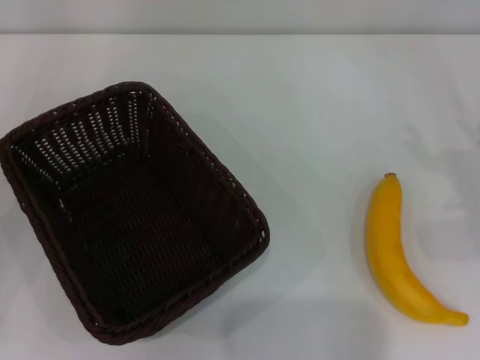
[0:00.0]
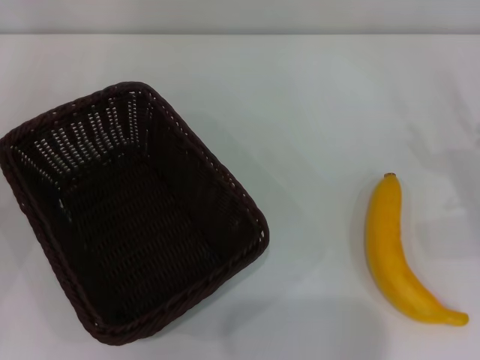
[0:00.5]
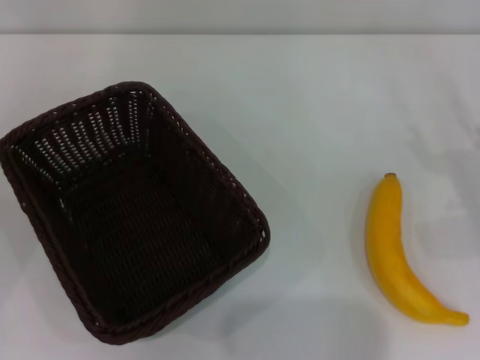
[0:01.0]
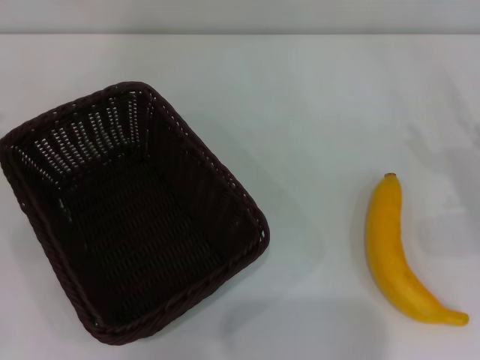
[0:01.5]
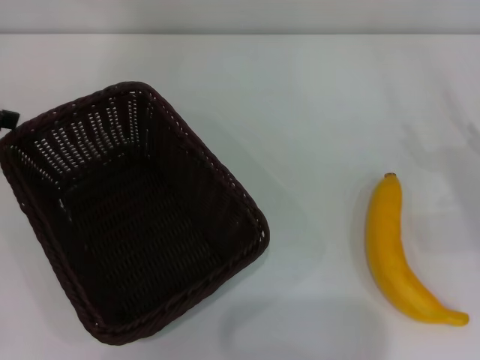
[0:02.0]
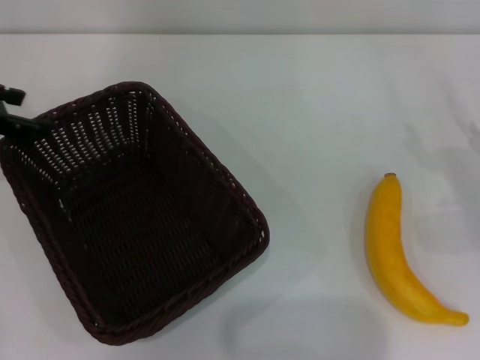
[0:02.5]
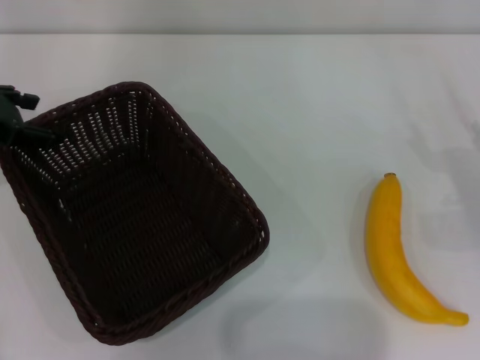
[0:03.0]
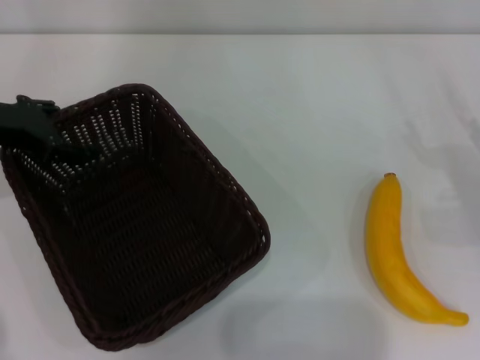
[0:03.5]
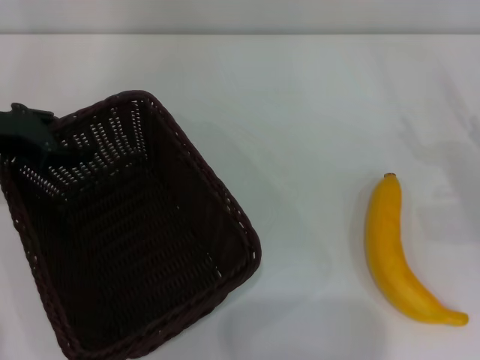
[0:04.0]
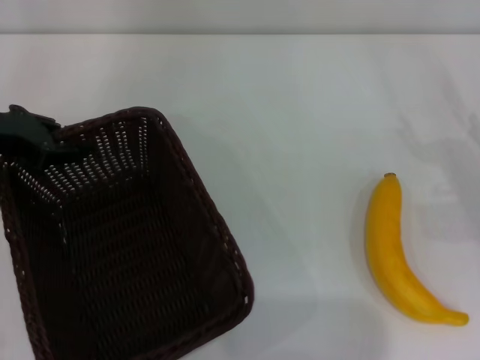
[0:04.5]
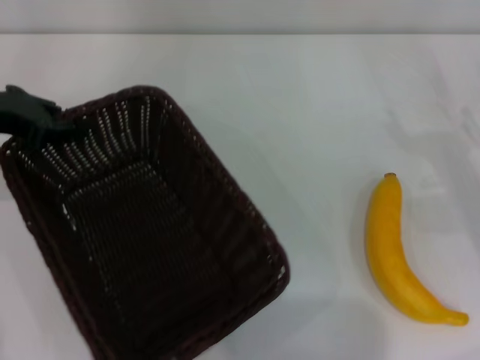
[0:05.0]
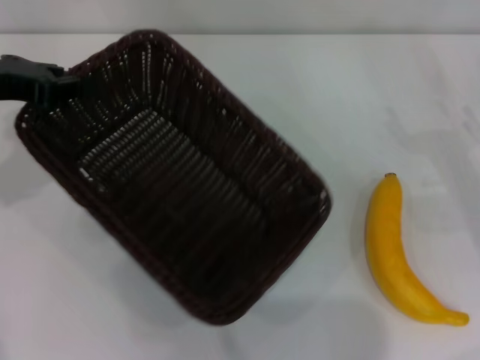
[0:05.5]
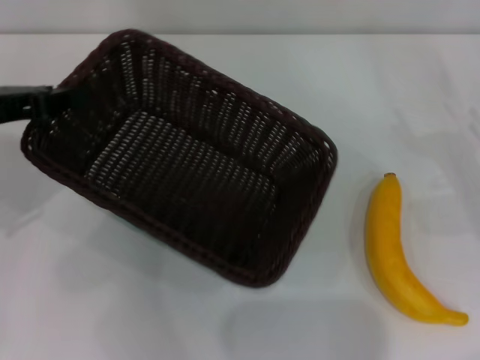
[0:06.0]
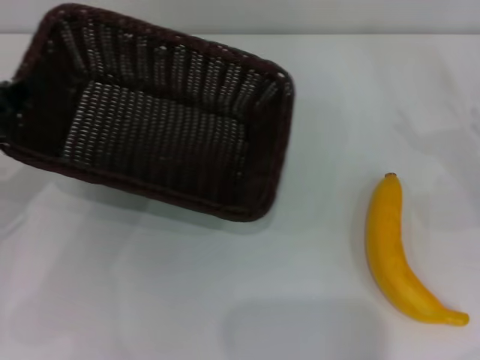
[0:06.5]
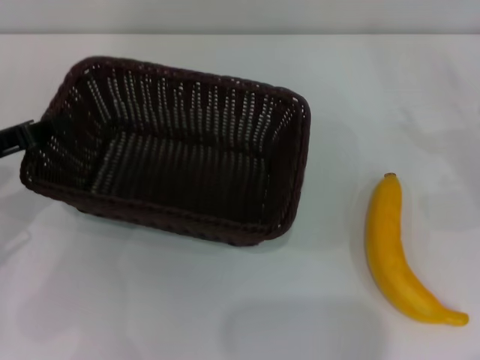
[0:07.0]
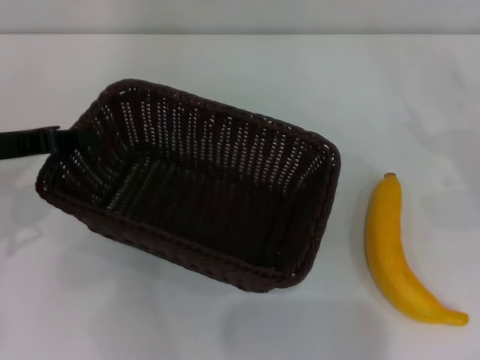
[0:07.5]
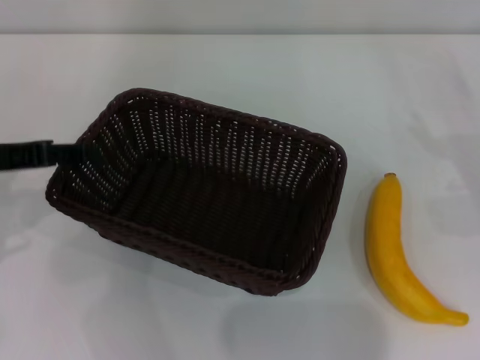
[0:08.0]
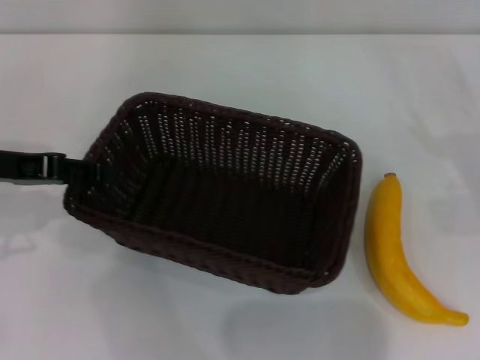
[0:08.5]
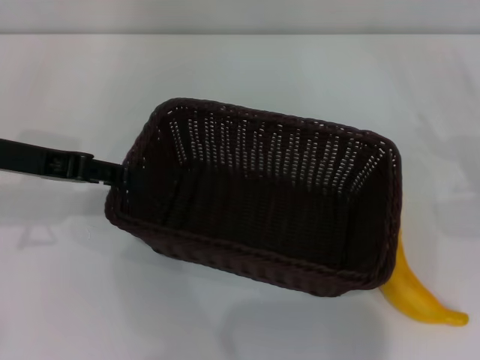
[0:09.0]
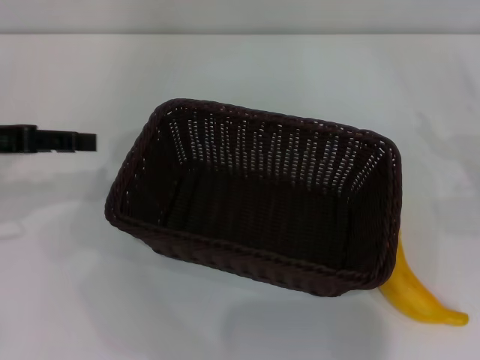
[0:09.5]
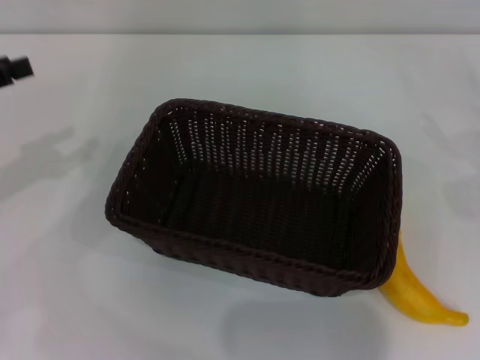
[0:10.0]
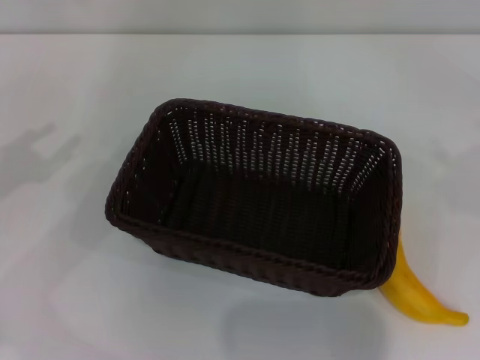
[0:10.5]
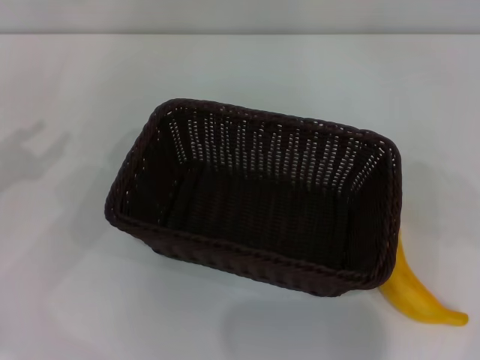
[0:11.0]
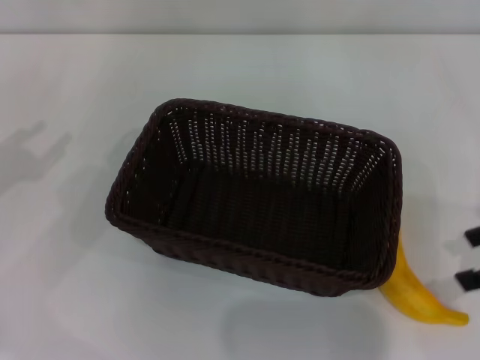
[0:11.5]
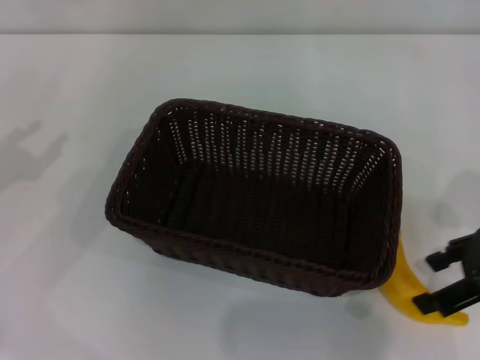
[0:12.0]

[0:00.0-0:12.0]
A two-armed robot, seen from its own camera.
Step, 0:00.0 to 0:05.0: Pick up the dark basket with the left gripper.
Step, 0:05.5 to 0:09.0: Place the dark basket in the center of view with the left gripper.
0:02.0 to 0:04.0: The left gripper moves downward and to the right, about 10 cm.
0:04.0 to 0:06.0: The left gripper changes place by roughly 5 cm, and closes.
0:06.0 to 0:08.0: The grippers make only small movements.
0:08.0 to 0:10.0: The left gripper travels to the left by some 5 cm, while the right gripper changes place by approximately 5 cm.
0:10.0 to 0:12.0: The right gripper moves to the left, approximately 15 cm.

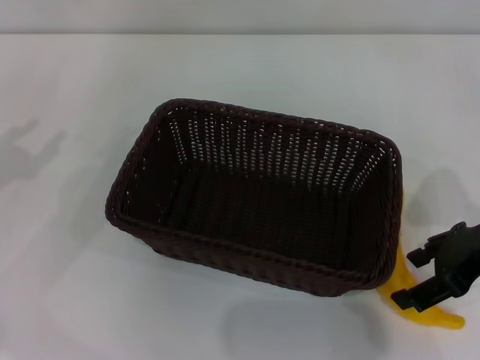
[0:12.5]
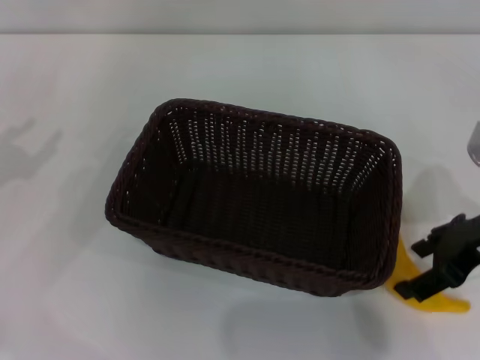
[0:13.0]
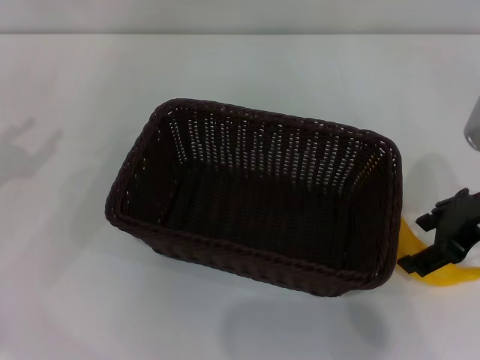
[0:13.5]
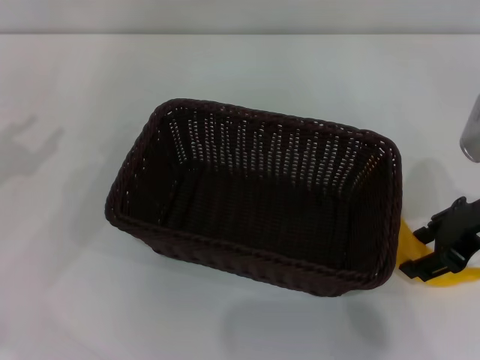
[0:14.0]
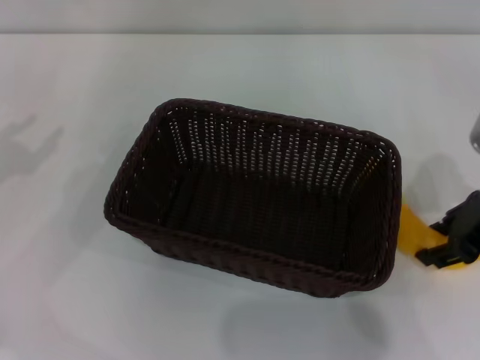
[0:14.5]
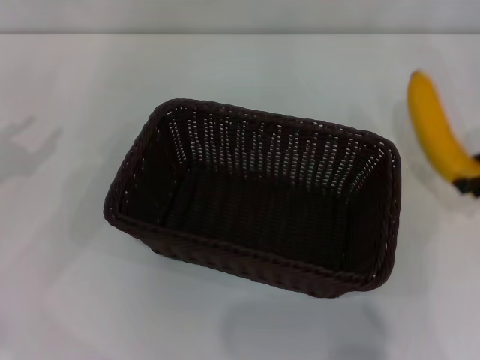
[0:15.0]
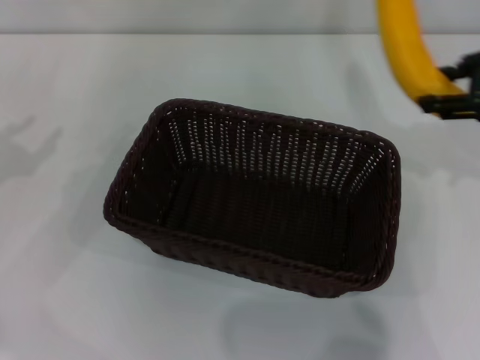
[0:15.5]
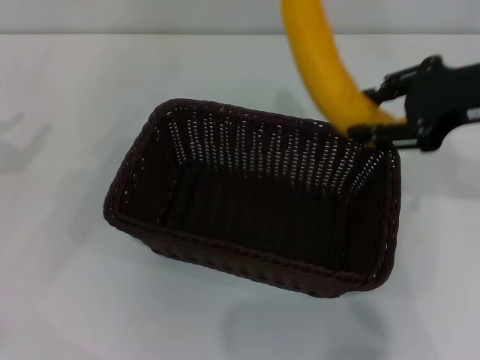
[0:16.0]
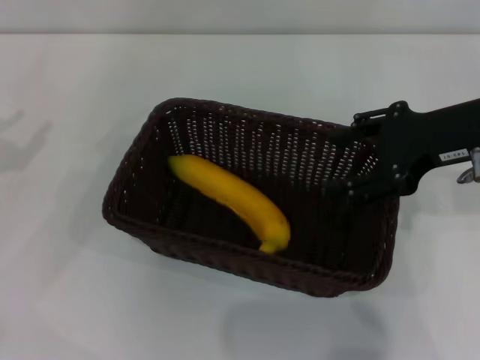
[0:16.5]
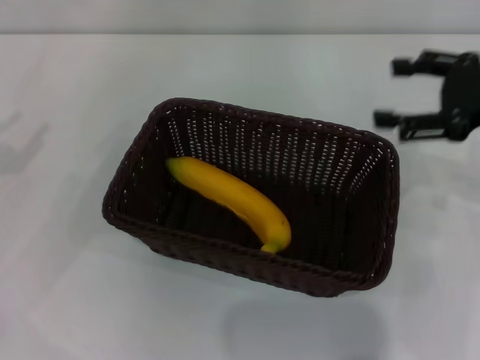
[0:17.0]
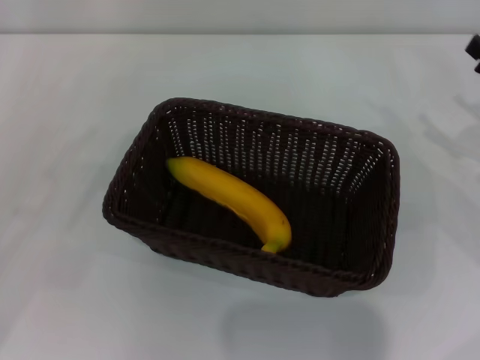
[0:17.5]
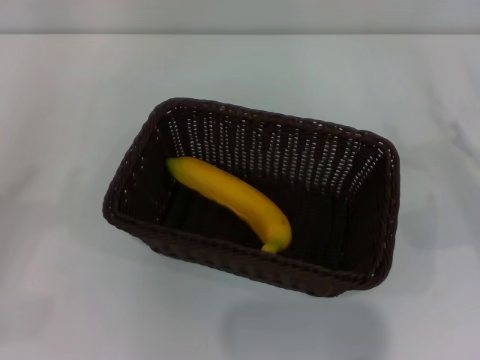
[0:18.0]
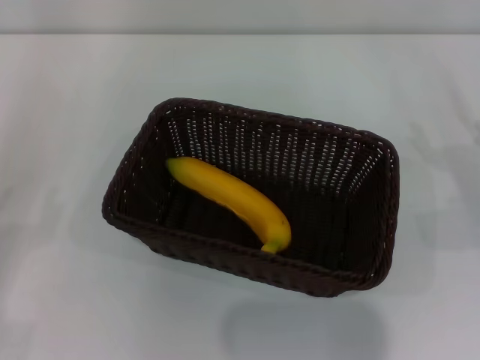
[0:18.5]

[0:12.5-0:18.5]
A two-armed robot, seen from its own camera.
0:12.5 to 0:14.5: The right gripper closes.
0:14.5 to 0:16.5: The right gripper is displaced upward by approximately 5 cm.
0:16.5 to 0:18.5: The right gripper heads downward and to the right, covering some 20 cm, and opens.
